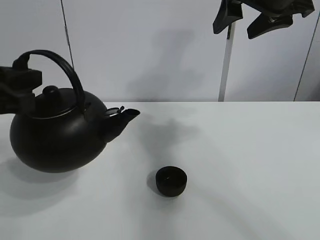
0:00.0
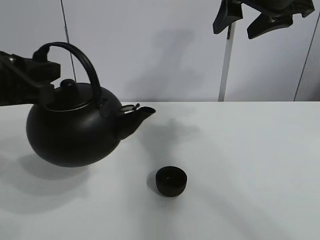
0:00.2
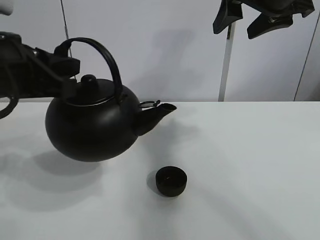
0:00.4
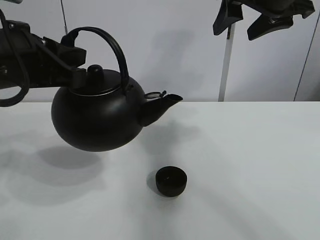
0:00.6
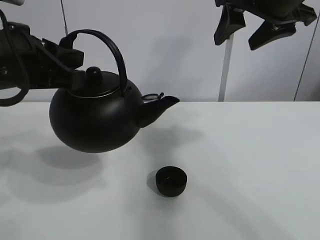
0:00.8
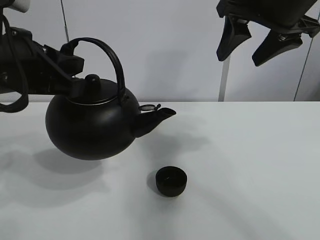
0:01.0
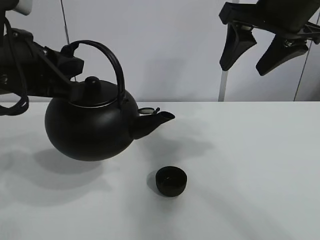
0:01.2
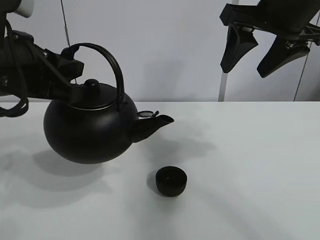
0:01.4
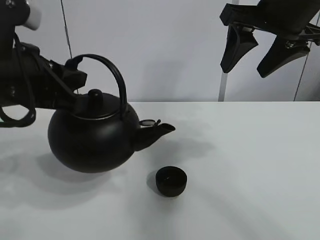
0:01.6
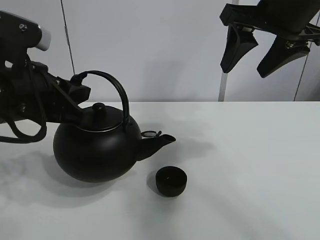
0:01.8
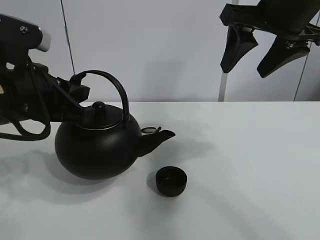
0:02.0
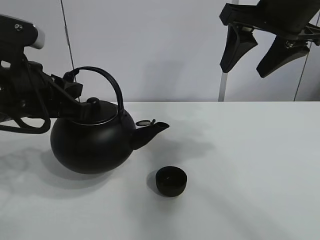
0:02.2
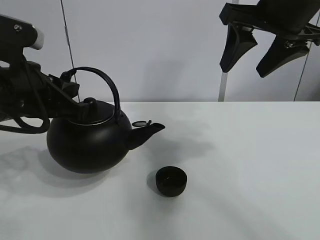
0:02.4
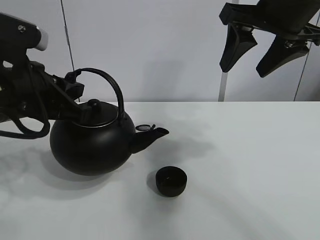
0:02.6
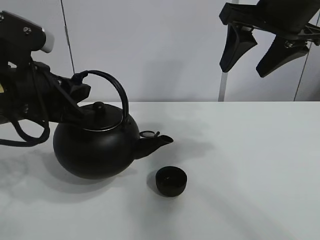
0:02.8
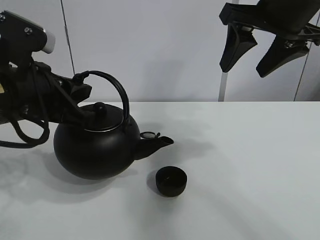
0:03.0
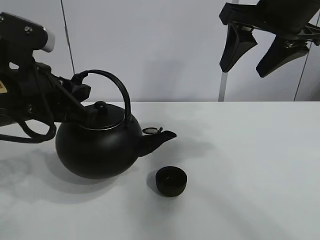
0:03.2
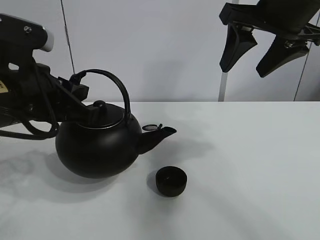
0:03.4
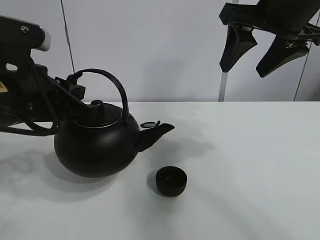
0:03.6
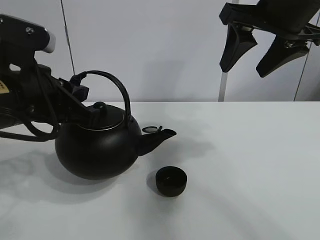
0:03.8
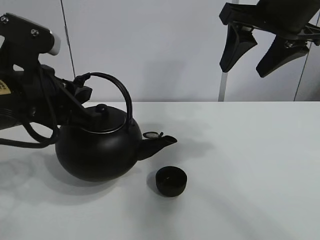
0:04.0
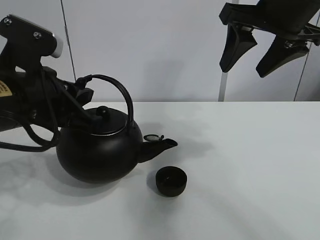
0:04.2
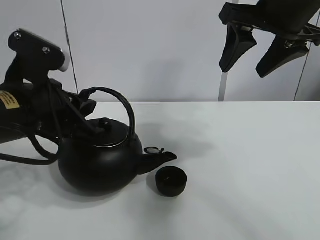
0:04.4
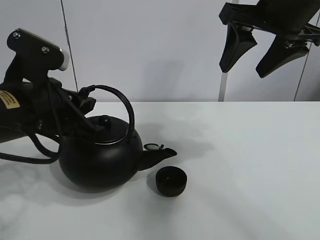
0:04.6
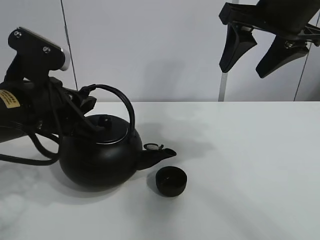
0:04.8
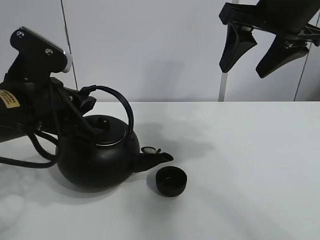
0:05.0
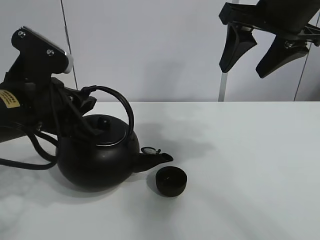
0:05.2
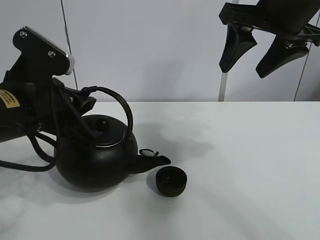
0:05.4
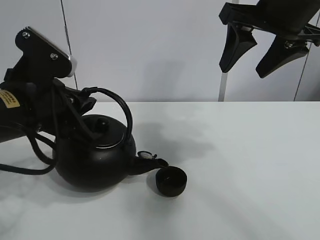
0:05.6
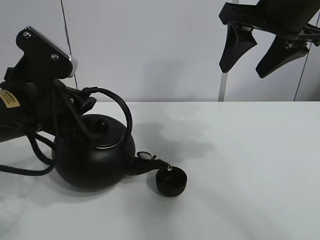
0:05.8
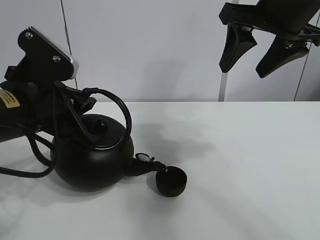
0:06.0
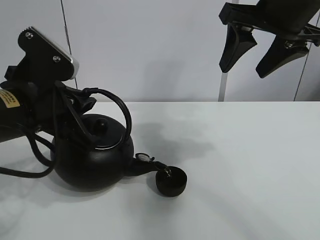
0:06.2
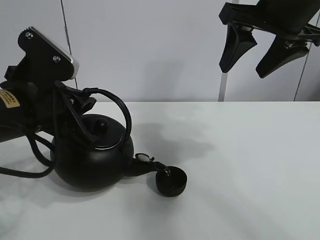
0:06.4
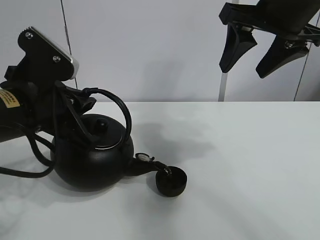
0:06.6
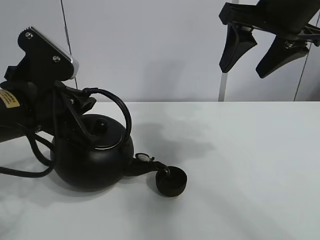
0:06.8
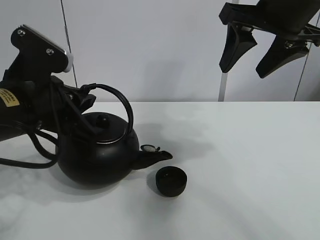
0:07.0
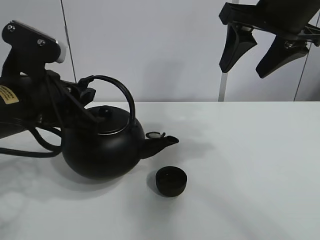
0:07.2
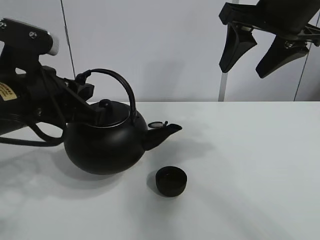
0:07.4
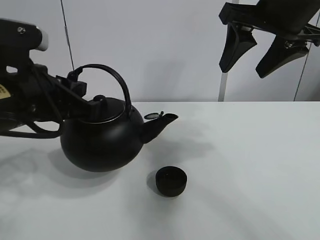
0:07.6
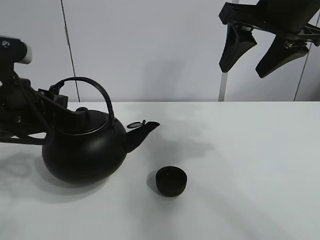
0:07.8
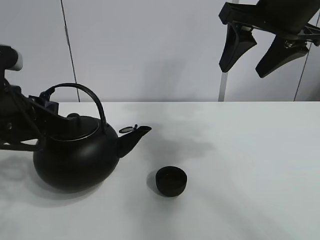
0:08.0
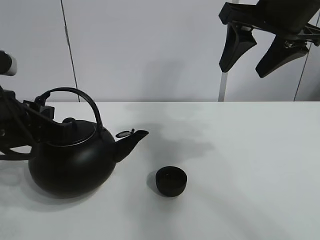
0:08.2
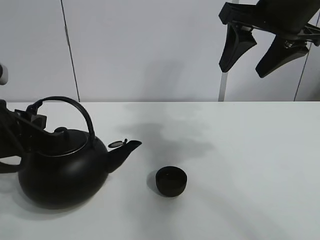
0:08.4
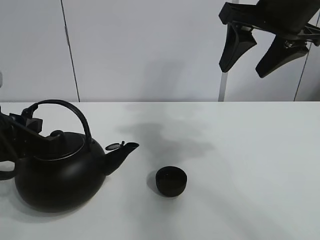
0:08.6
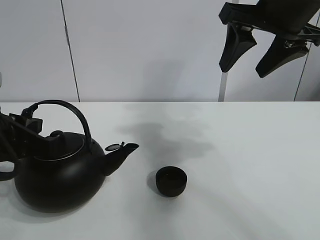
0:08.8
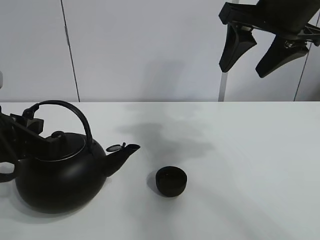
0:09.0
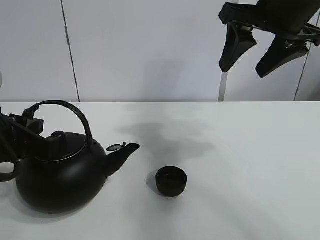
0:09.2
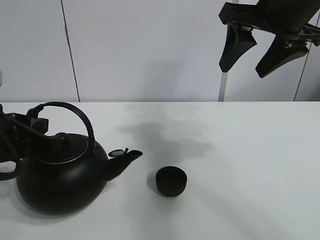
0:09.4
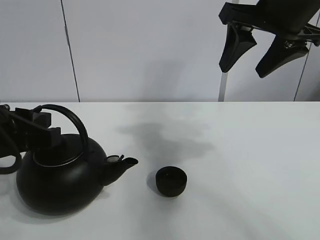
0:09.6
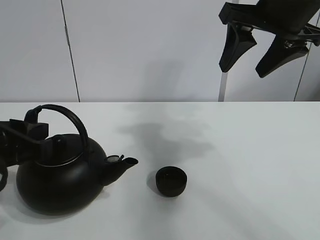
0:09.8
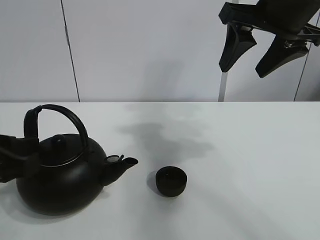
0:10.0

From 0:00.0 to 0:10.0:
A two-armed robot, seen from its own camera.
Task of the whole recording: pour tea into the teacup.
Step, from 0:00.0 to 0:07.0: Pour tea into the teacup with the left gripper.
From 0:00.0 to 0:01.4: The left gripper shifts by about 5 cm.
From 0:01.4 to 0:07.2: The grippers move only a little.
From 0:07.2 to 0:08.6: The left gripper shifts by about 5 cm.
From 0:08.6 to 0:10.0: The left gripper opens.

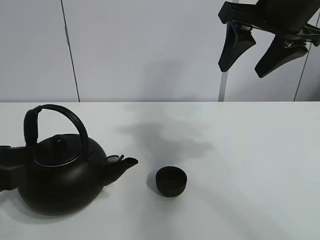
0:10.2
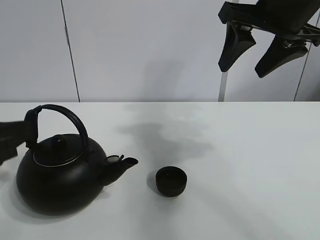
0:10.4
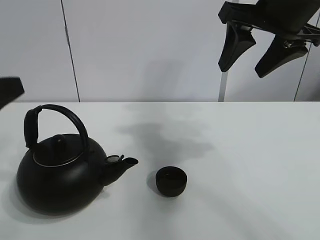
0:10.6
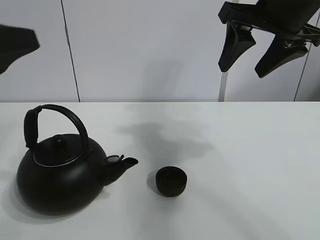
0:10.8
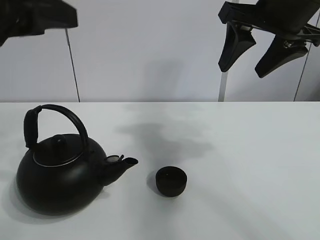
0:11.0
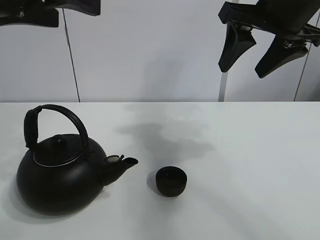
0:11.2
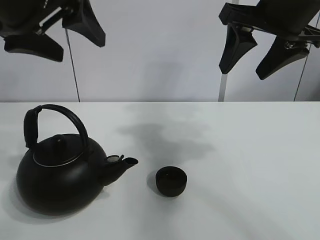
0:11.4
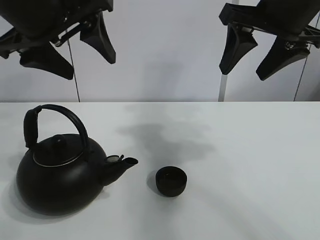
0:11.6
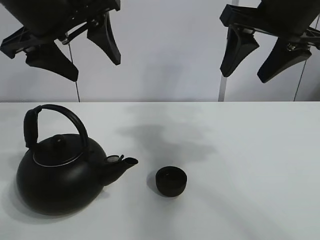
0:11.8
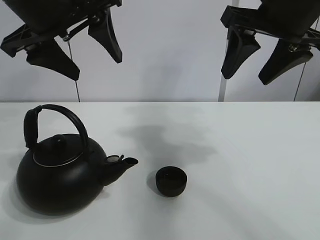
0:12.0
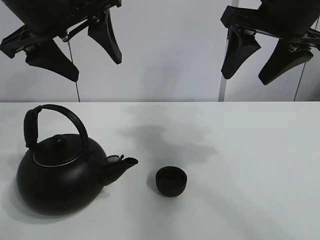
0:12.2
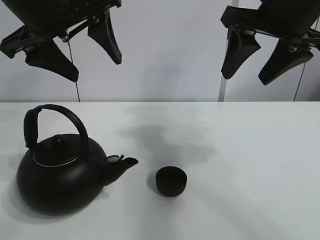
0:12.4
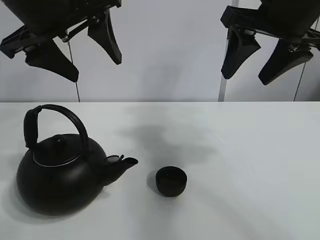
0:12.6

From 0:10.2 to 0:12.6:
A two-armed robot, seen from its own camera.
Task of the whole recording: pour tea into the teacup.
From 0:10.2 to 0:11.4: The left gripper moves upward, forward and to the right, about 20 cm, and opens.
From 0:11.4 to 0:12.6: The grippers move only a little.
